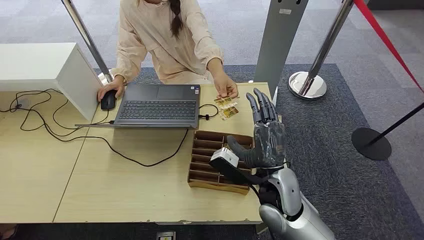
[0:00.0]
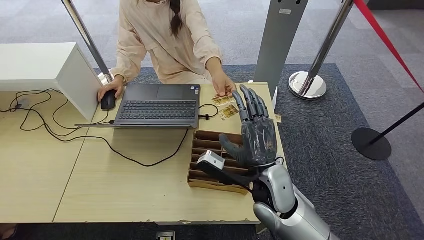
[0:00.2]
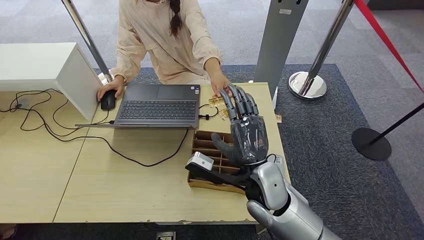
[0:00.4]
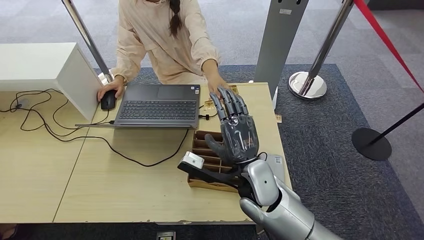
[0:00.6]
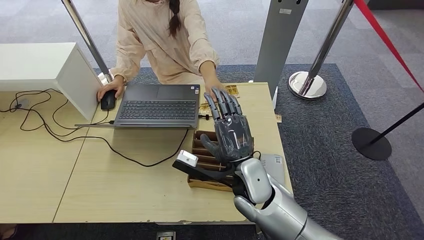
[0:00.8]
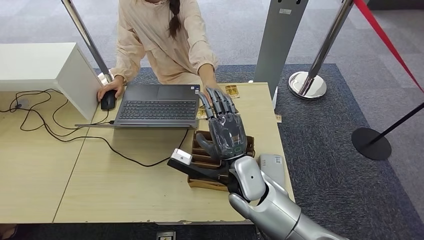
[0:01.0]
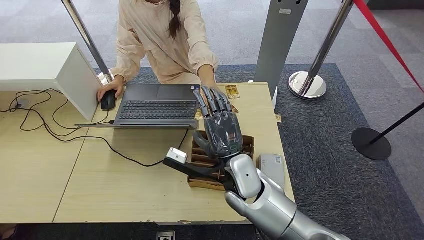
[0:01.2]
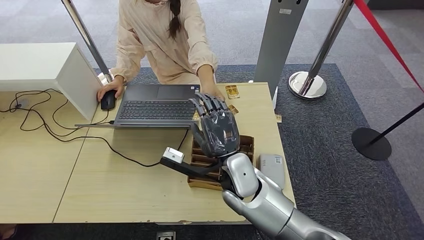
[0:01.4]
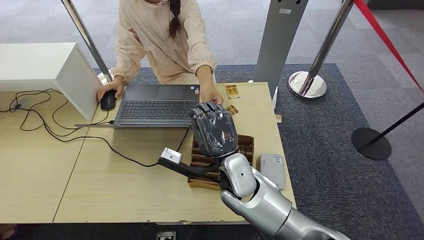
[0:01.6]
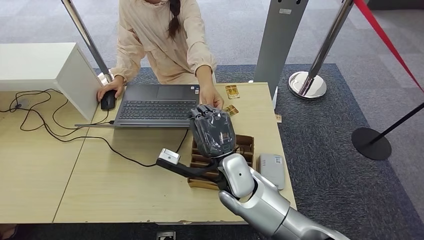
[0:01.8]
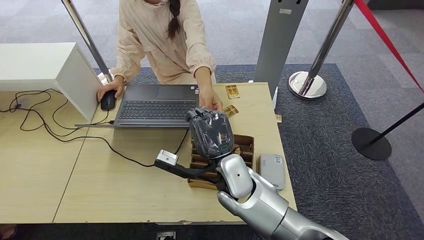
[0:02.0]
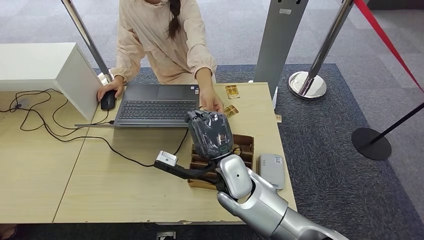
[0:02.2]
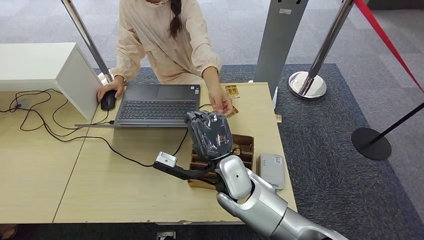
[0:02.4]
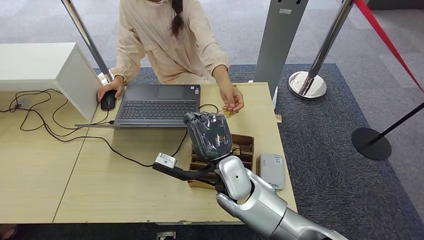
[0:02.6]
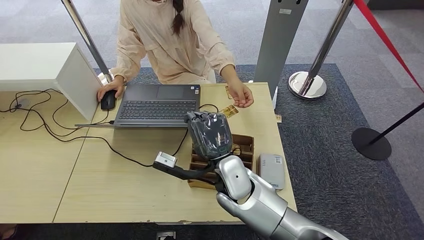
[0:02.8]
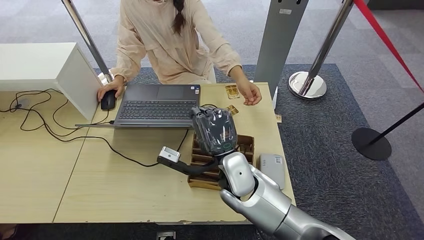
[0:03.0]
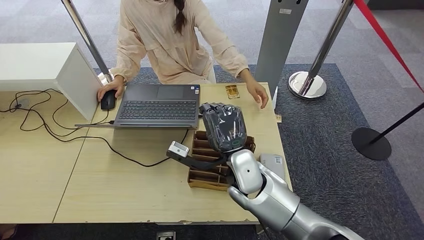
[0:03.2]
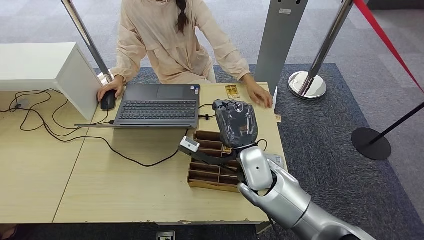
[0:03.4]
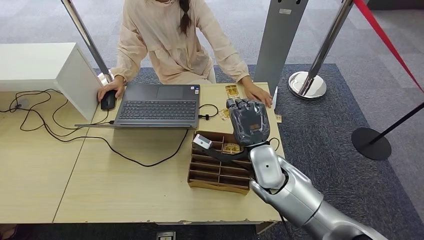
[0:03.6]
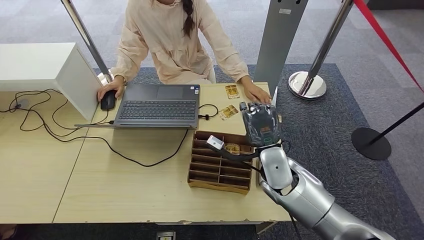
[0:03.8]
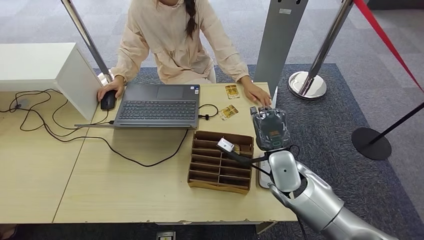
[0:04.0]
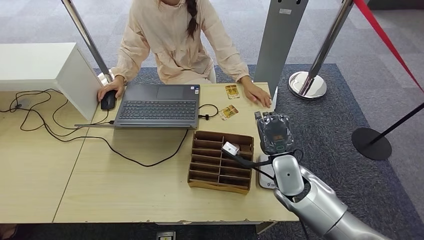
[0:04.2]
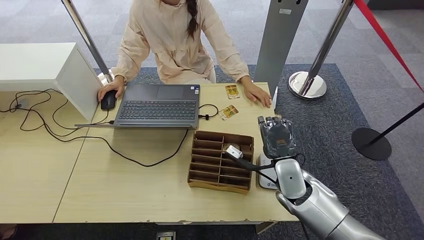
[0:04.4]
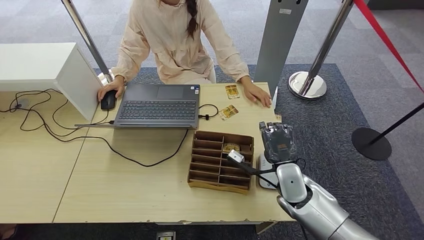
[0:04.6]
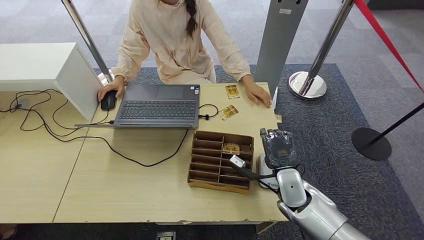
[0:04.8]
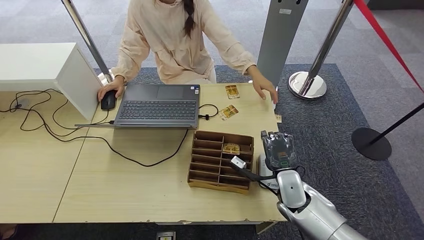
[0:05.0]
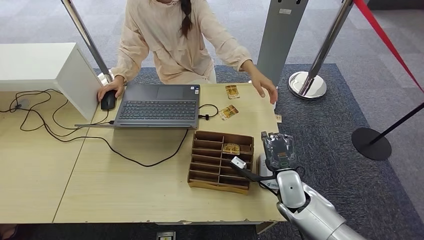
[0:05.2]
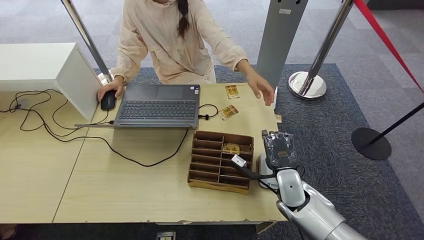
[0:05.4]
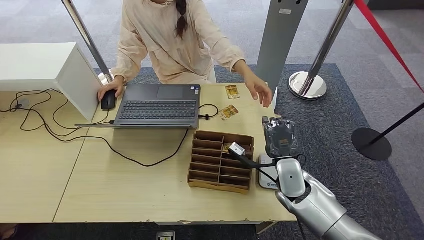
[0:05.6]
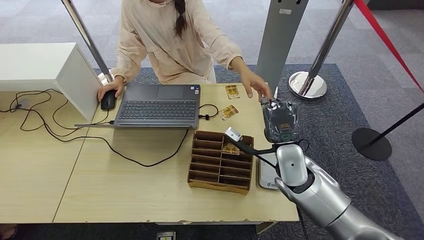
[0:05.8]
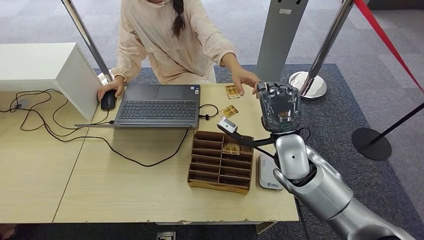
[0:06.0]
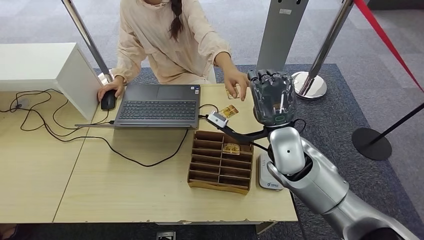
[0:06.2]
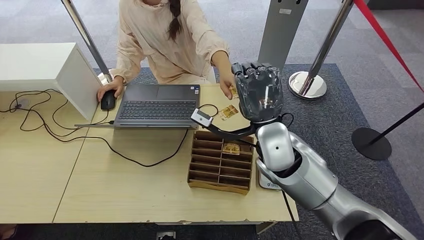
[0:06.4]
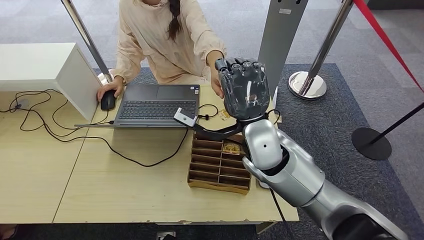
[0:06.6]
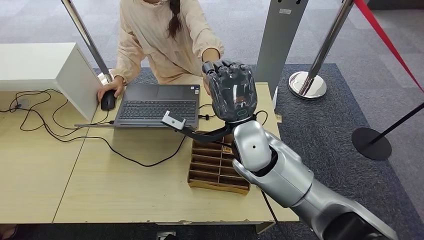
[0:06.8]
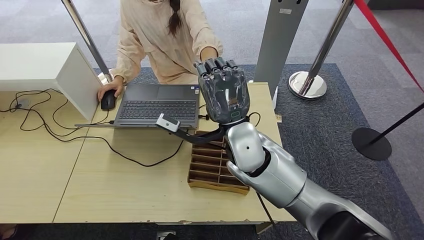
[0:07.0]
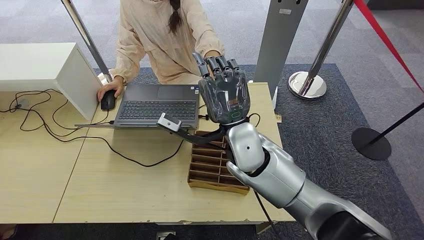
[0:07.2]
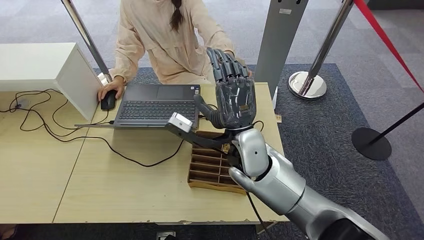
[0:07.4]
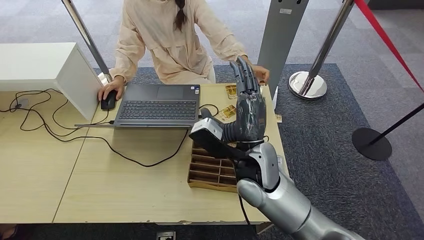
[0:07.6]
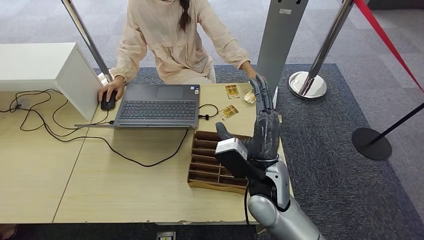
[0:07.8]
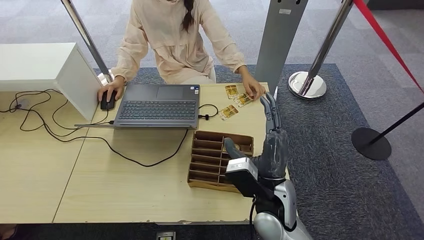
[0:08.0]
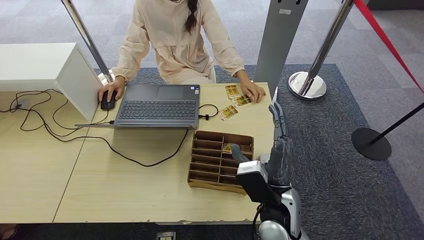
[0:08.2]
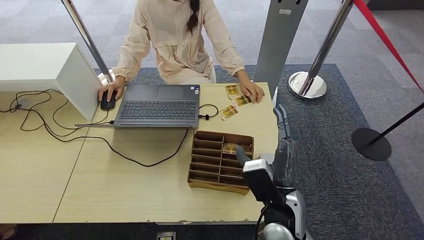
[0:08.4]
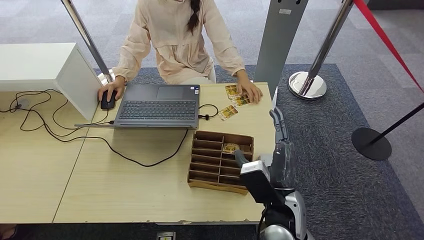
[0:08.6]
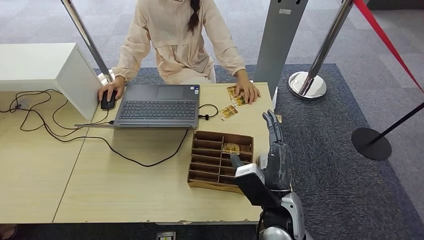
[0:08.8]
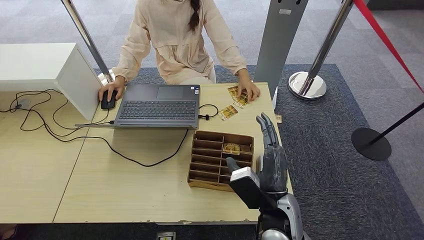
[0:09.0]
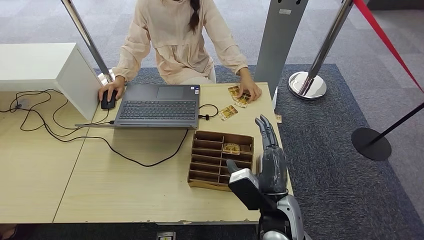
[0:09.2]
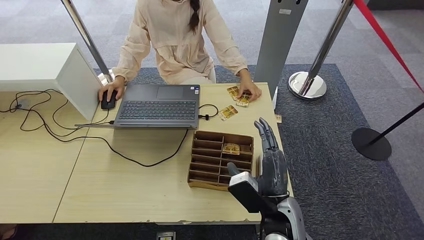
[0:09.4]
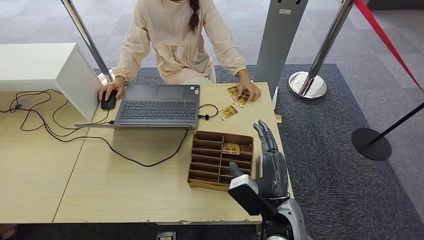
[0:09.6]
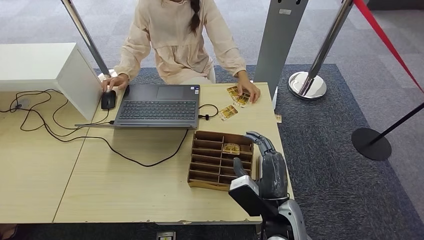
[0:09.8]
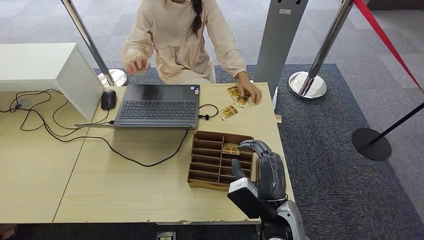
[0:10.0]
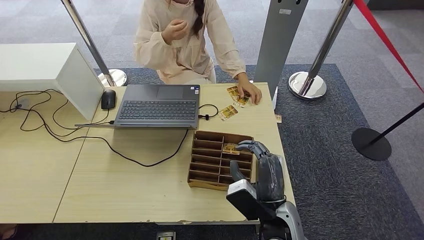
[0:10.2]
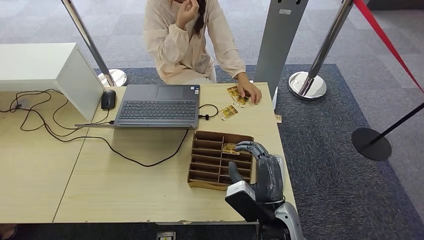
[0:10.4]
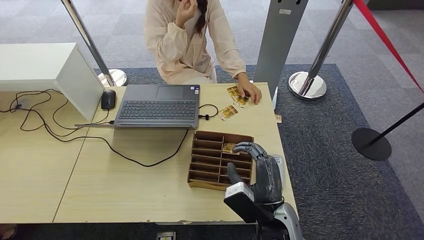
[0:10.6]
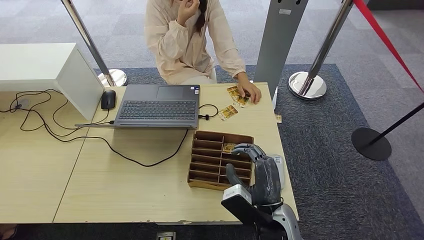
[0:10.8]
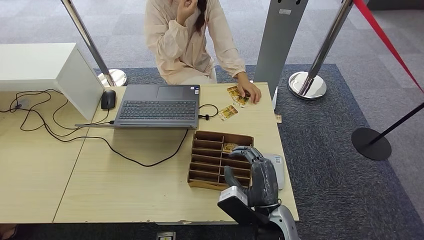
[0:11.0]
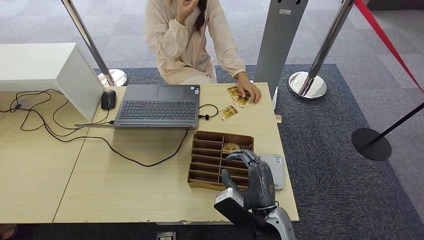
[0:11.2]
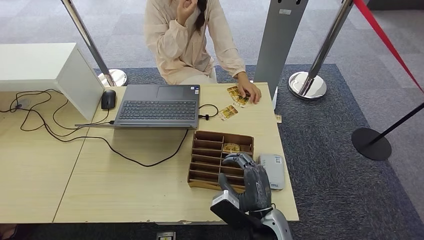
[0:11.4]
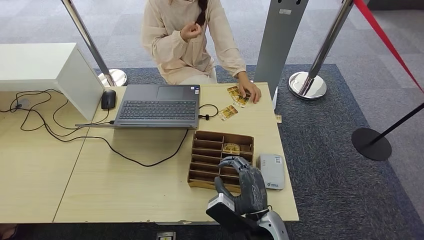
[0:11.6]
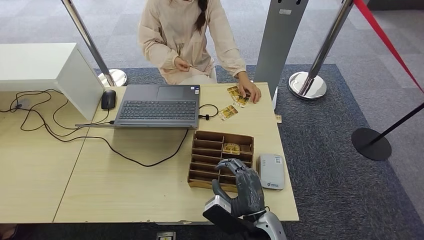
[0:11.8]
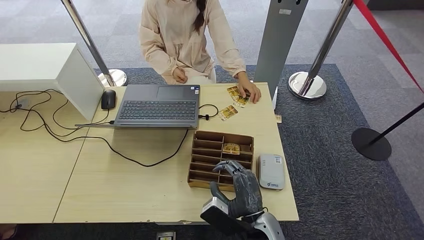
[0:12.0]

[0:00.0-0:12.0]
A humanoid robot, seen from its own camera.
Step, 0:00.0 to 0:03.6: Take the ID card from the person's hand.
Step, 0:03.8 to 0:04.8: Place the ID card on the card reader.
Step, 0:05.2 to 0:08.4: Hand the ID card to the person.
0:01.6 to 0:03.0: Both hands stay put.
0:03.0 to 0:04.4: The right hand moves to the right, roughly 15 cm.
0:04.4 to 0:06.0: The right hand shifts some 10 cm upward.
0:06.0 to 0:07.6: The right hand moves to the left, roughly 10 cm.
0:07.6 to 0:09.0: The right hand travels backward and downward by about 10 cm.
0:09.0 to 0:10.4: The hands move only a little.
0:10.4 to 0:12.0: The hands make only small movements.

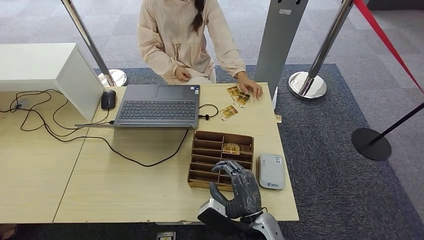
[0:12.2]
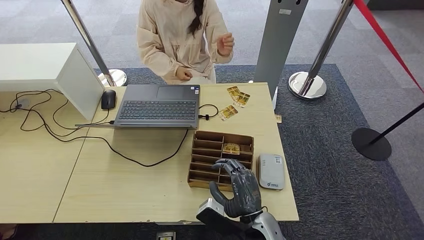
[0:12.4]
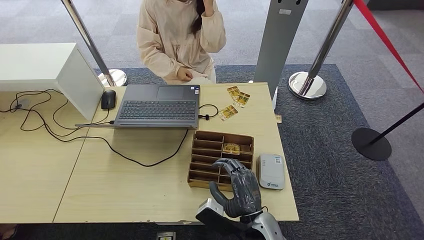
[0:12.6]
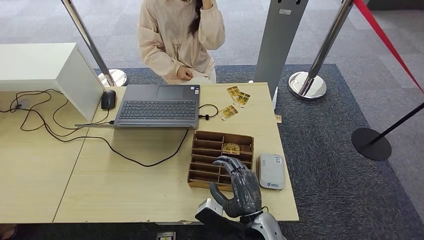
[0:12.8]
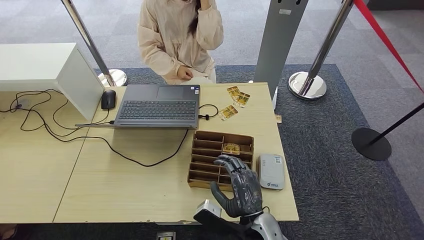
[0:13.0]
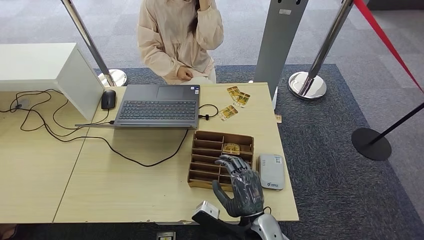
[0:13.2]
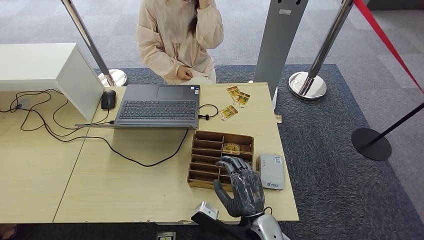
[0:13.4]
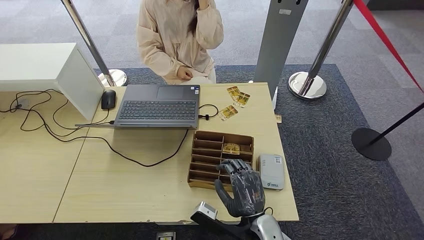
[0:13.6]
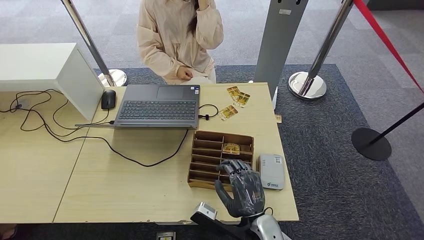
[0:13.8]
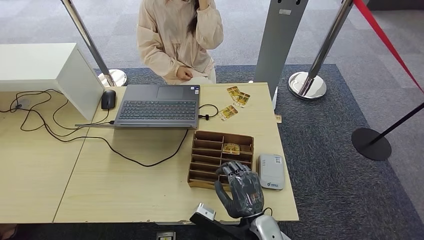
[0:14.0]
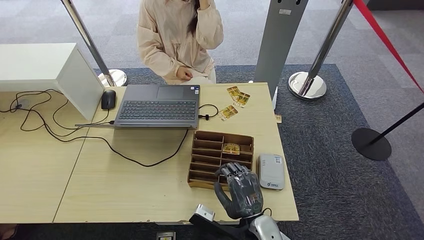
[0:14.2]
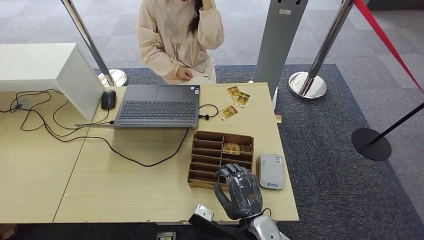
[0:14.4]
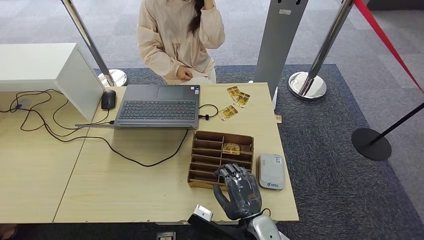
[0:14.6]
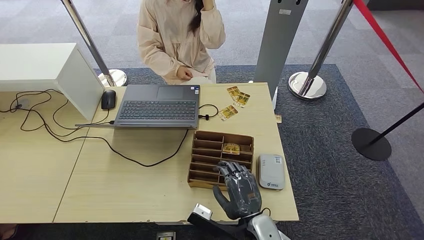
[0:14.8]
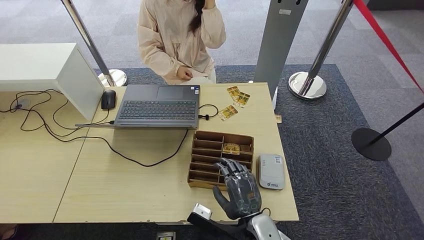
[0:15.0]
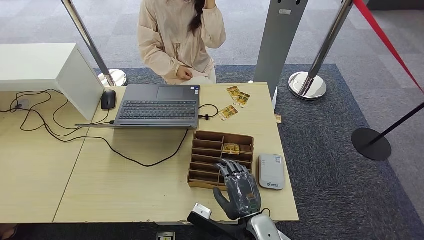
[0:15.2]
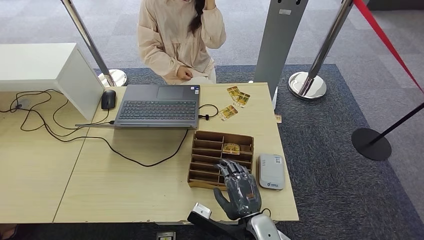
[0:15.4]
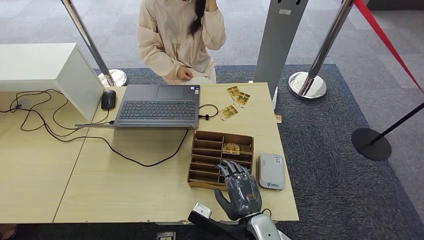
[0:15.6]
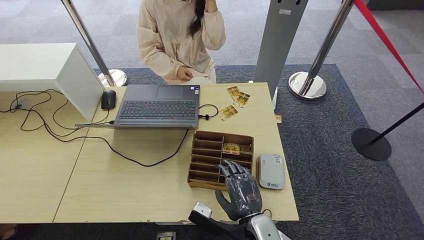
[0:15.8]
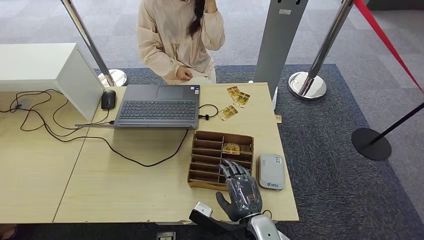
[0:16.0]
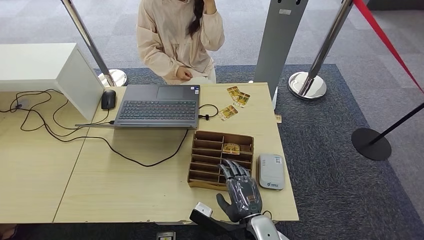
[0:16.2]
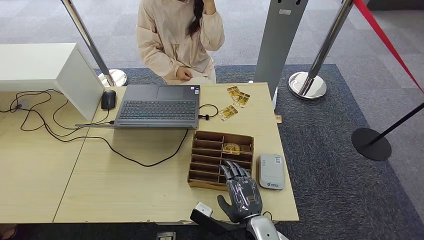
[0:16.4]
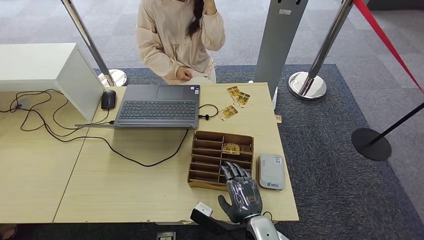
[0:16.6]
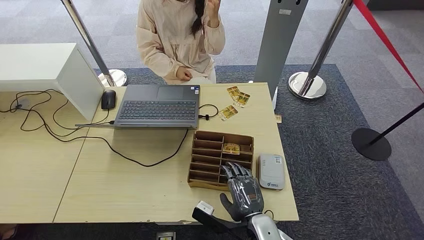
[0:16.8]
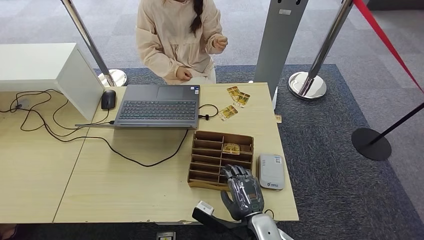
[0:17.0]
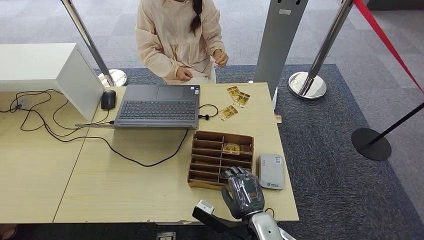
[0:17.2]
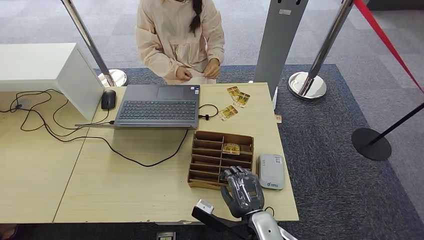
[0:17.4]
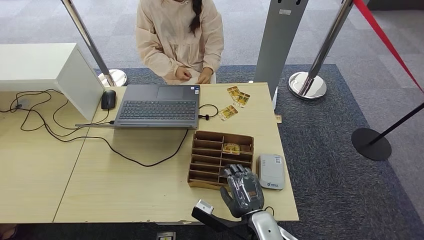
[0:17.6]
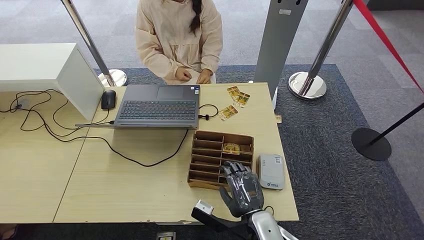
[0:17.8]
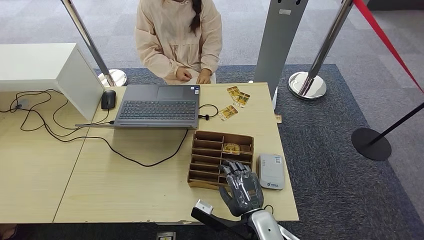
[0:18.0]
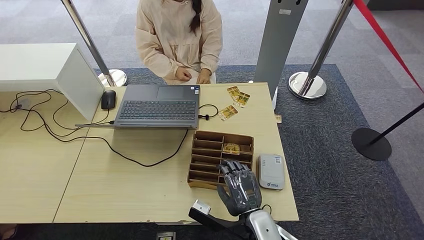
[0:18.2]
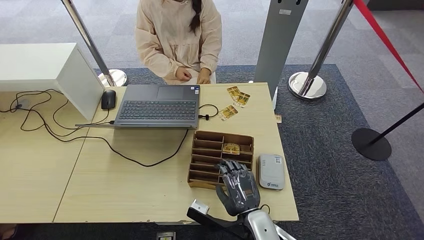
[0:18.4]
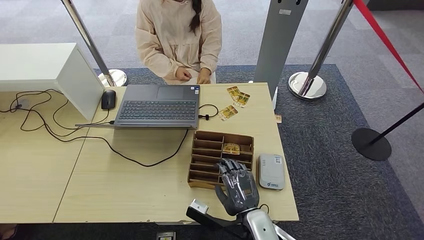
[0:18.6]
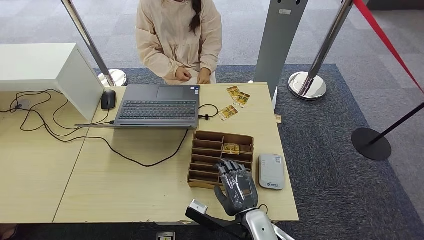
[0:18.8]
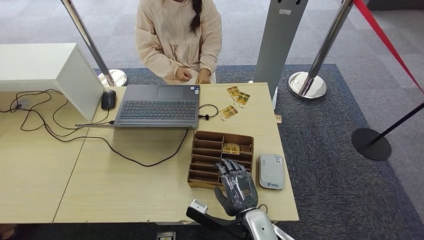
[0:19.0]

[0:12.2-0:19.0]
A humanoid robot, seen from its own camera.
0:12.2 to 0:13.6: The hands move only a little.
0:13.6 to 0:16.2: The hands stay close to where they were, moving slightly.
0:16.2 to 0:17.6: Neither hand changes place.
0:17.6 to 0:19.0: The two hands keep their place.
